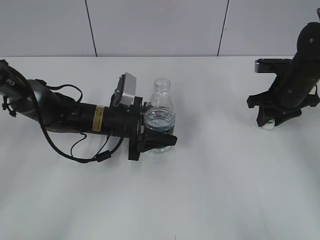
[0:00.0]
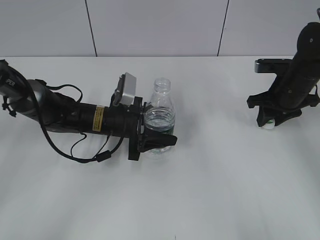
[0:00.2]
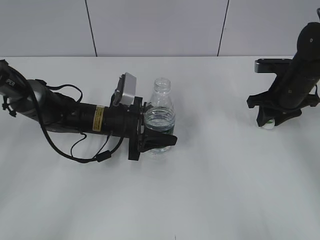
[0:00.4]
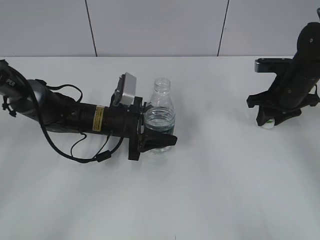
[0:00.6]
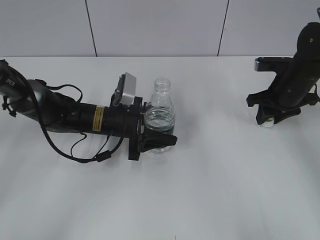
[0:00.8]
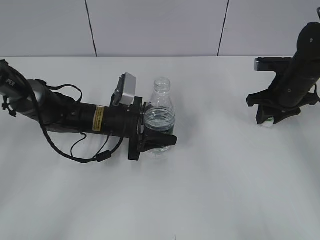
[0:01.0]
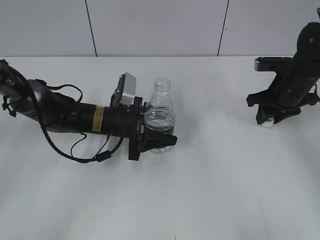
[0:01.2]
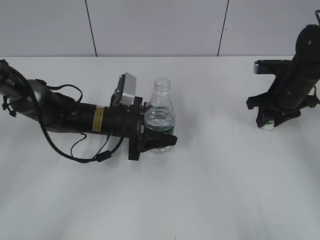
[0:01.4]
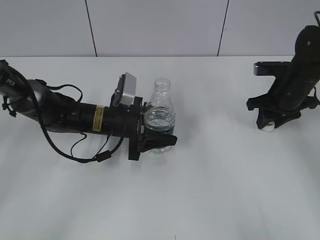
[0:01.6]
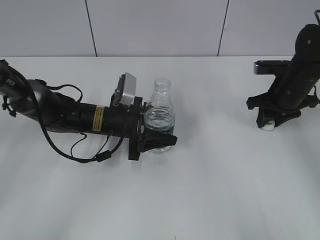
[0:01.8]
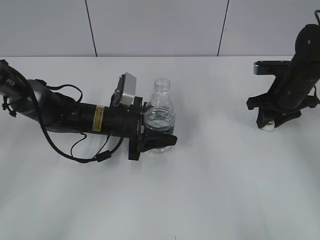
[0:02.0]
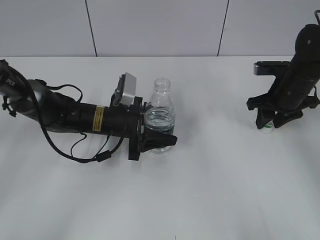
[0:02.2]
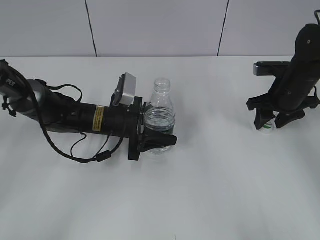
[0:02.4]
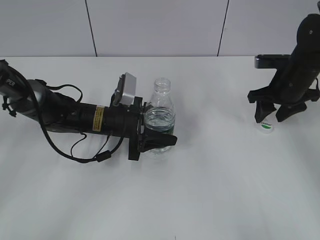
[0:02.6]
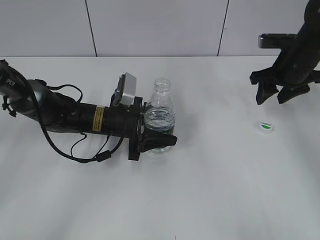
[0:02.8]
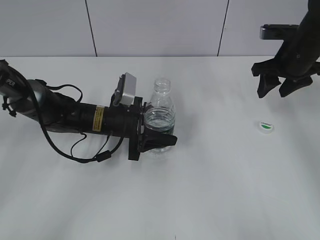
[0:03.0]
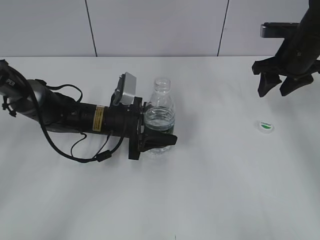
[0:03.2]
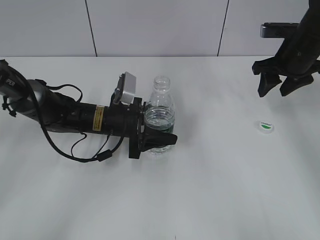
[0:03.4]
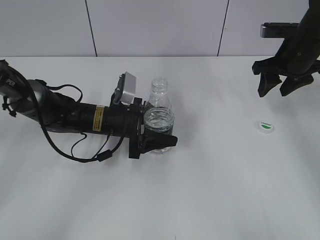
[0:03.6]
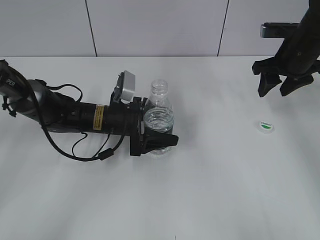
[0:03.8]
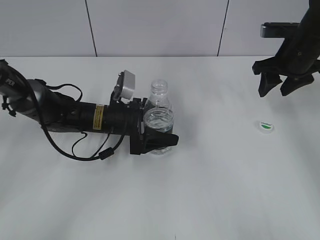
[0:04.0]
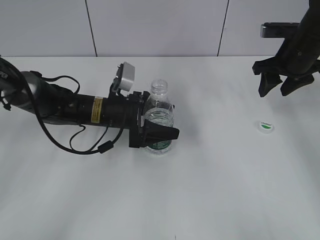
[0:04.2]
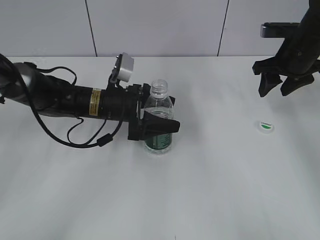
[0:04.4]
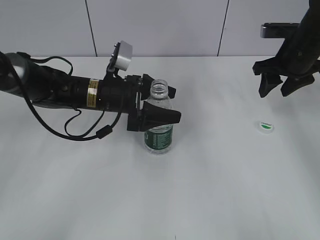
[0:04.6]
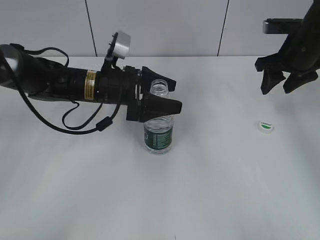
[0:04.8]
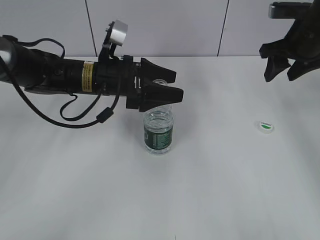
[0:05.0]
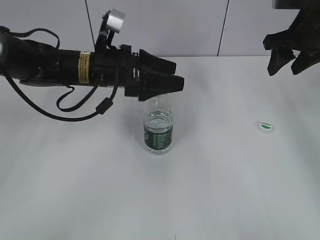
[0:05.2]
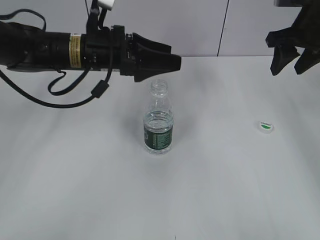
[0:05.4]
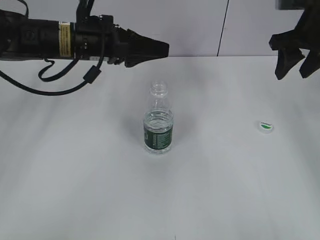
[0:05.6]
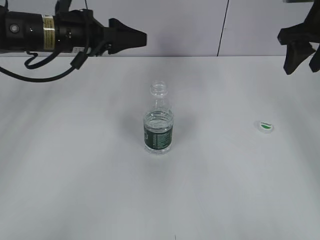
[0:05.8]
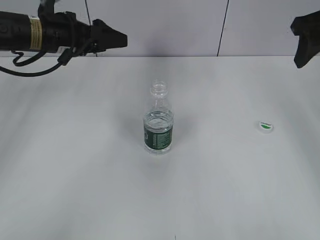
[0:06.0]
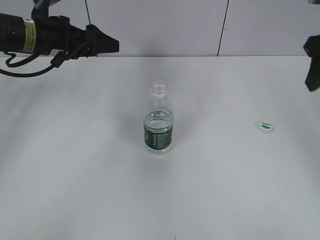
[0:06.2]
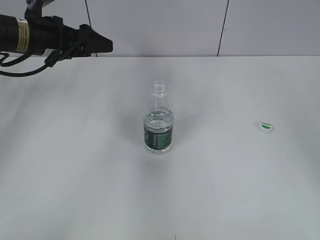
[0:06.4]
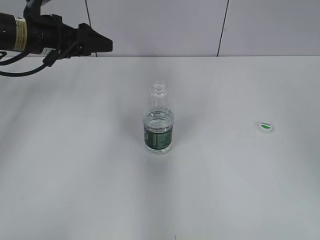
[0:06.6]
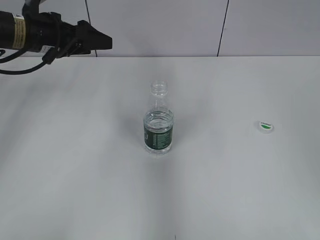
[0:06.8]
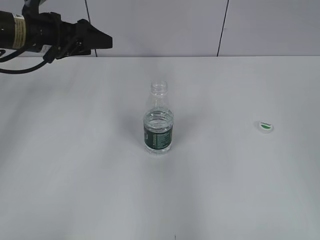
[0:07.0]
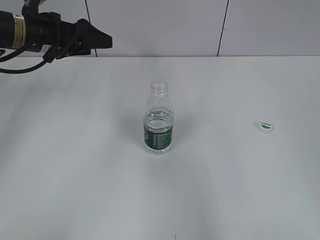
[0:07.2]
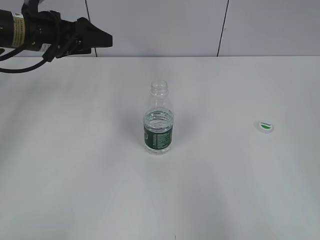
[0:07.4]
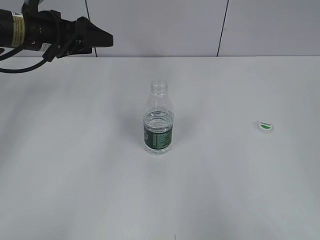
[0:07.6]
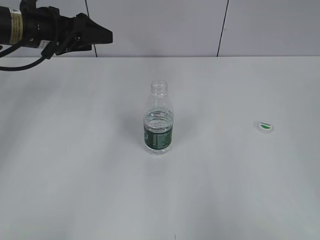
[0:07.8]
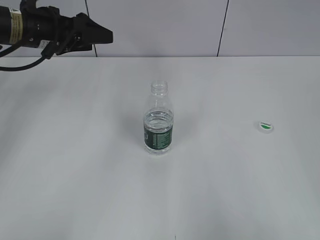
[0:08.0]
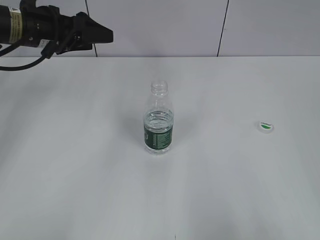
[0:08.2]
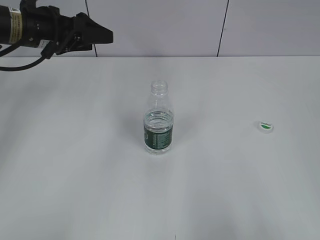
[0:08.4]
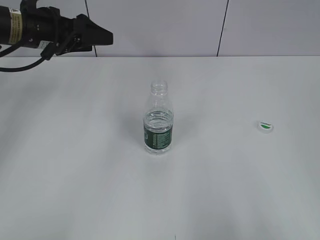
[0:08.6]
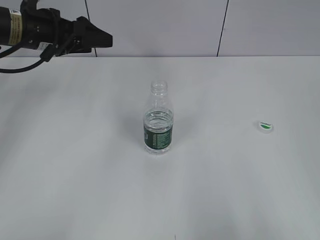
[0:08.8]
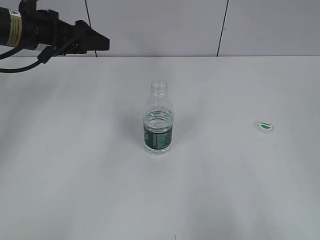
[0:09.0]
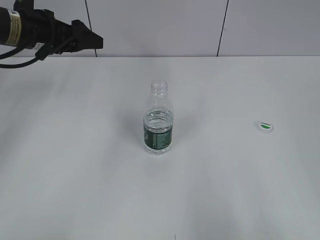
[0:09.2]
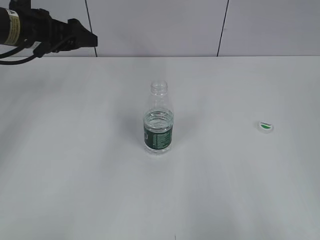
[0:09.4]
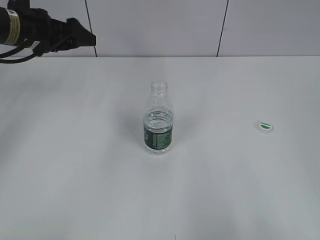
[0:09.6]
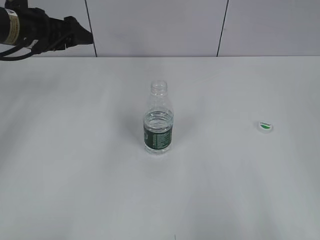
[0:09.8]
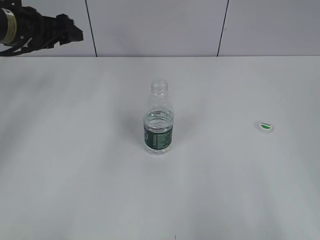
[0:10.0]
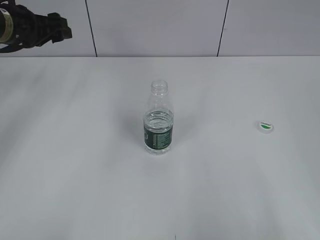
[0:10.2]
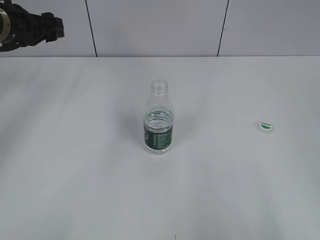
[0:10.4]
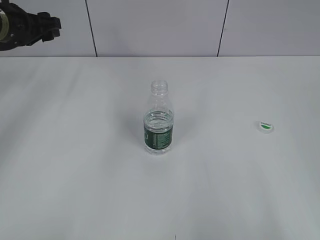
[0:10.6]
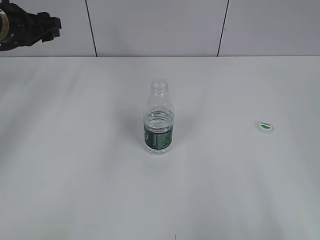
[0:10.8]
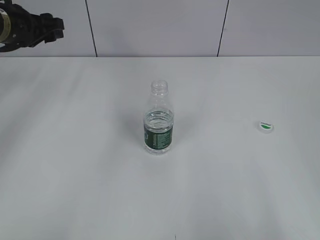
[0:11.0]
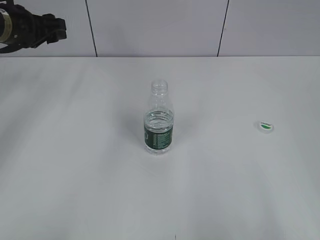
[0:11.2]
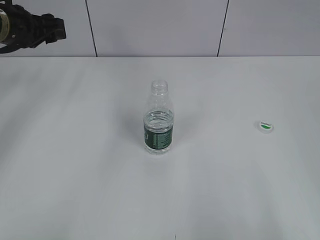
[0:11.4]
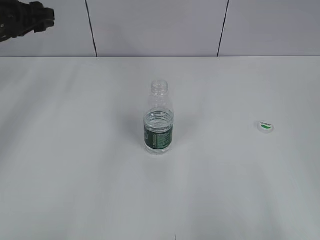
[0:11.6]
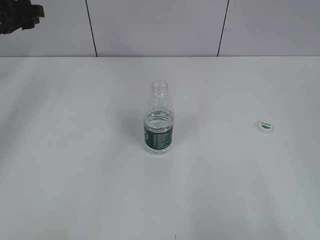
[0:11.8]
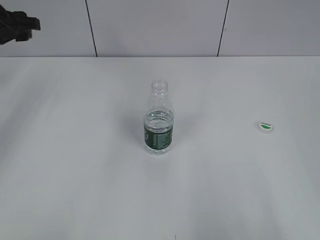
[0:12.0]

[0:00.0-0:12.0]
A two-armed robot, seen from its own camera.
Step, 0:00.0 to 0:02.6: Place the bottle cap on the table with the right gripper.
Step, 0:02.8 to 0:04.4: Place the bottle on the table with the left gripper.
0:00.0 to 0:01.6: Neither gripper changes place.
0:01.6 to 0:03.0: The right gripper goes some 5 cm upward, and opens its fingers.
0:03.0 to 0:04.4: The left gripper opens its fingers.
0:04.4 to 0:06.0: The left gripper heads upward and to the left, covering approximately 15 cm. Meanwhile the right gripper travels upward by about 10 cm.
0:06.0 to 0:07.6: The right gripper shifts roughly 35 cm backward.
0:07.6 to 0:09.0: The grippers stay close to where they were, moving slightly.
0:09.0 to 0:10.4: The left gripper ends up approximately 5 cm from where it was.
0:10.4 to 0:12.0: The grippers make only small movements.

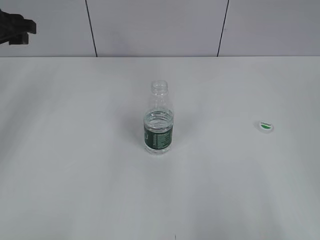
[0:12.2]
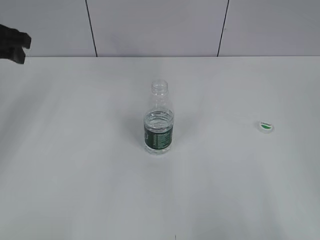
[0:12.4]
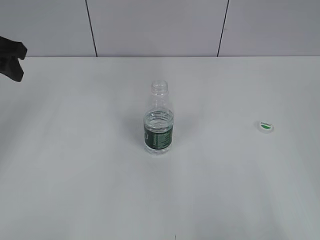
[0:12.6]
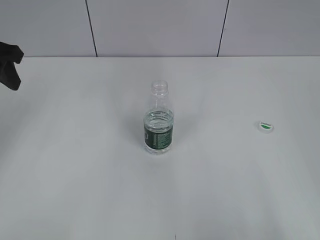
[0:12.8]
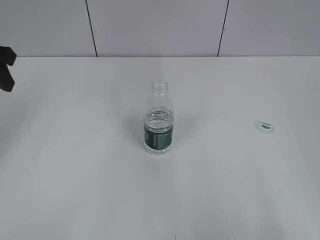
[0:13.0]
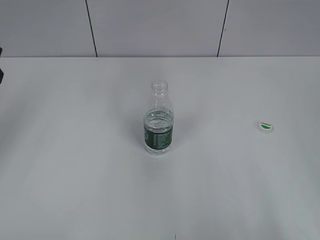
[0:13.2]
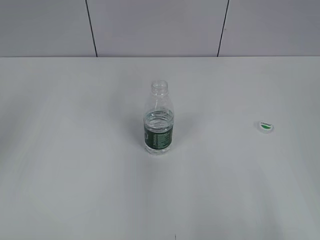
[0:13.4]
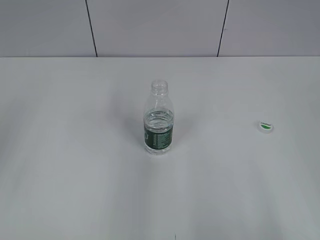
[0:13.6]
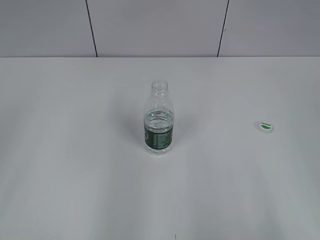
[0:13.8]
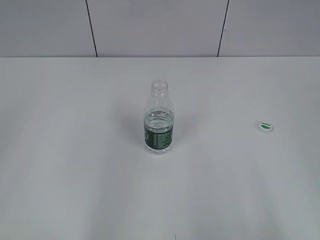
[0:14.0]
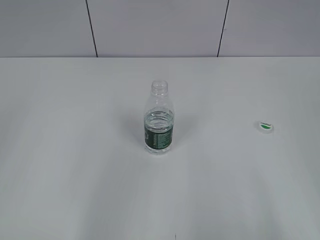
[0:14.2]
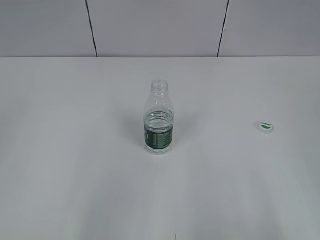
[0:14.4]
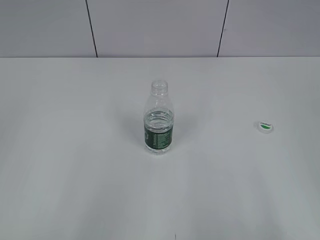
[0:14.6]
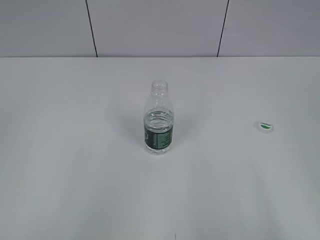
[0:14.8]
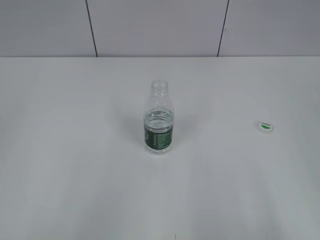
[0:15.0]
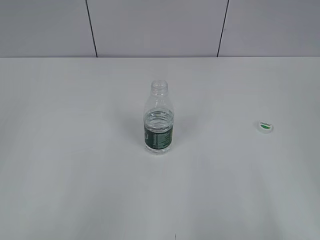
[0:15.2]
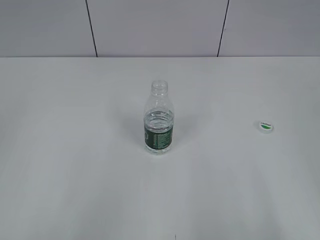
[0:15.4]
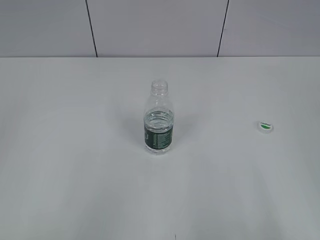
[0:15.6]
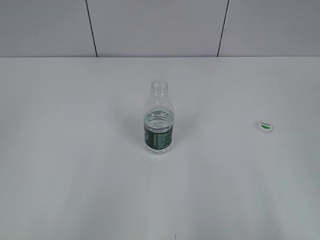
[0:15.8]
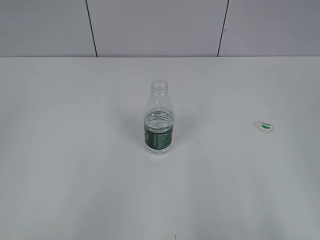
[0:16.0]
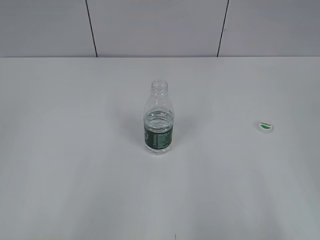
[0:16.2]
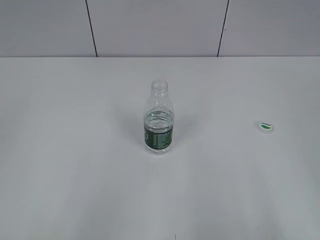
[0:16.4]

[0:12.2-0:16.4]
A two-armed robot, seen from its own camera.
0:12.2 to 0:13.6: The left gripper heads backward, covering roughly 20 cm.
0:15.0 to 0:16.4: Both grippers stay put.

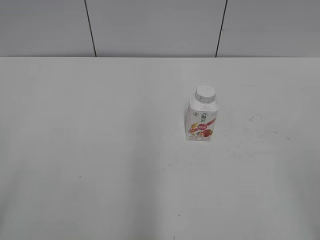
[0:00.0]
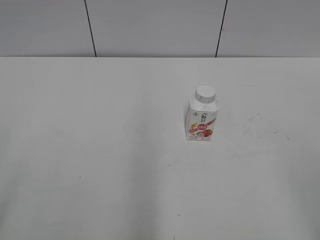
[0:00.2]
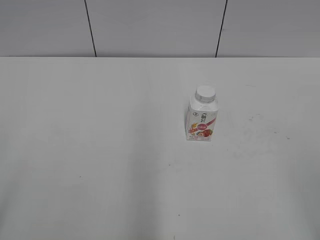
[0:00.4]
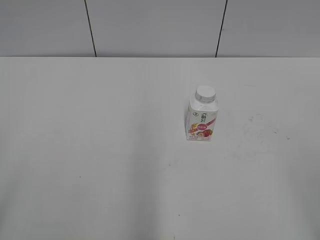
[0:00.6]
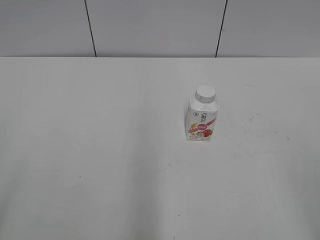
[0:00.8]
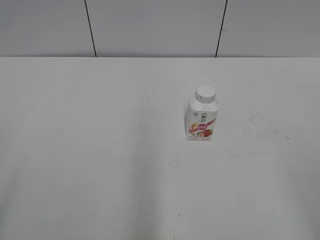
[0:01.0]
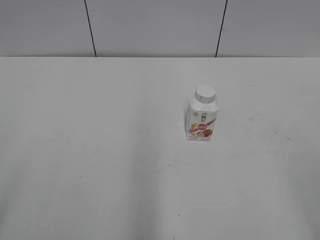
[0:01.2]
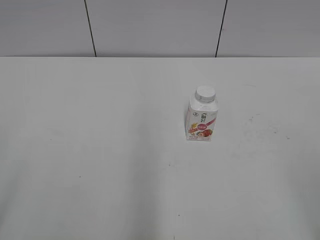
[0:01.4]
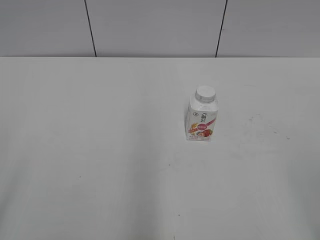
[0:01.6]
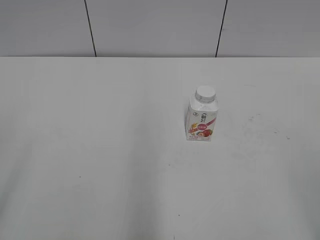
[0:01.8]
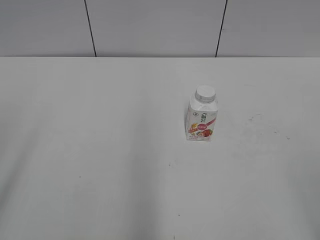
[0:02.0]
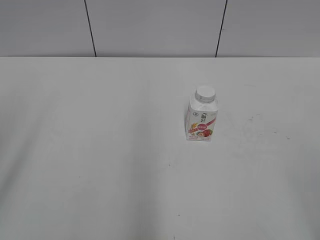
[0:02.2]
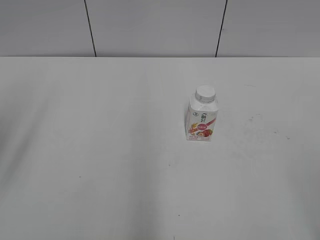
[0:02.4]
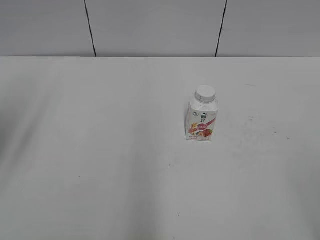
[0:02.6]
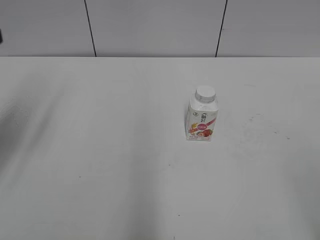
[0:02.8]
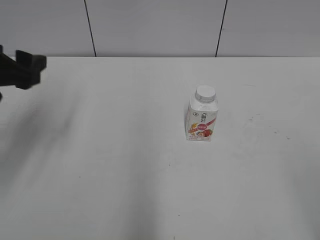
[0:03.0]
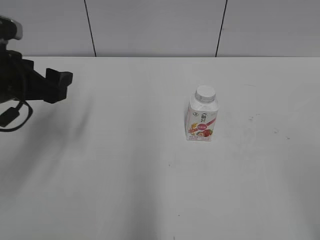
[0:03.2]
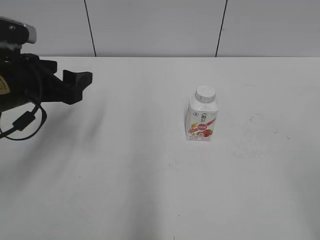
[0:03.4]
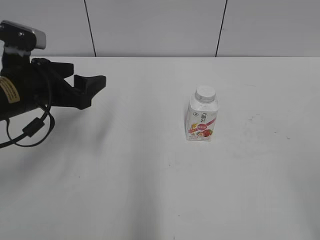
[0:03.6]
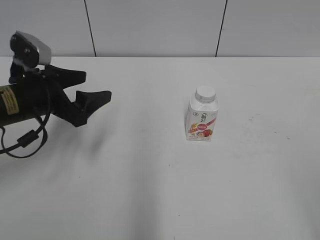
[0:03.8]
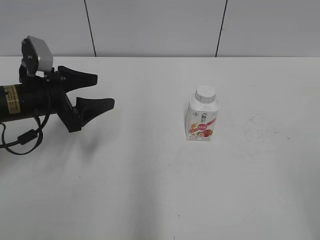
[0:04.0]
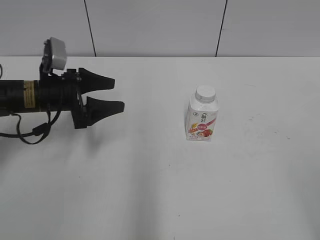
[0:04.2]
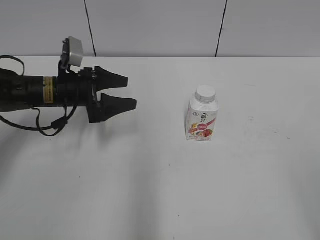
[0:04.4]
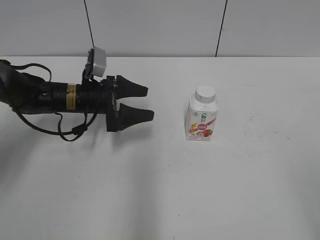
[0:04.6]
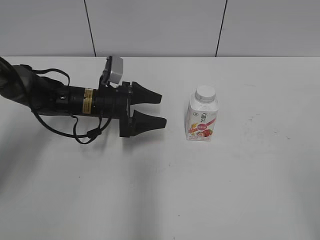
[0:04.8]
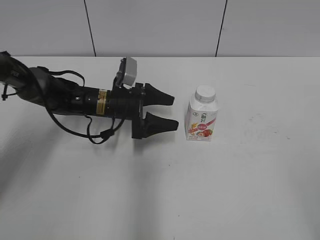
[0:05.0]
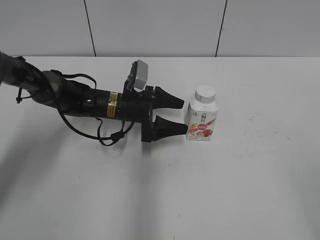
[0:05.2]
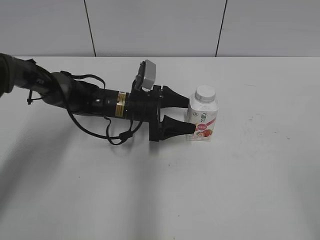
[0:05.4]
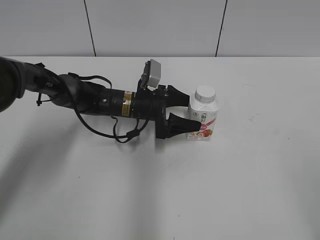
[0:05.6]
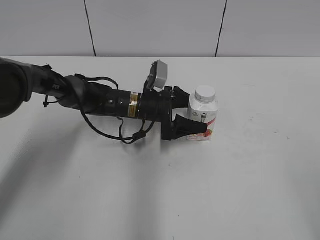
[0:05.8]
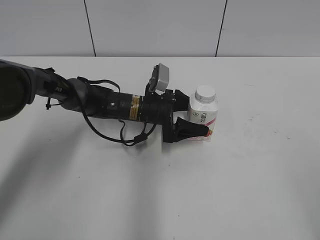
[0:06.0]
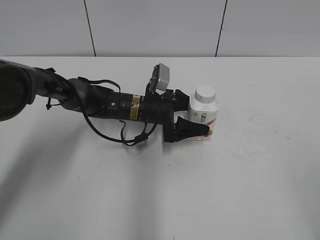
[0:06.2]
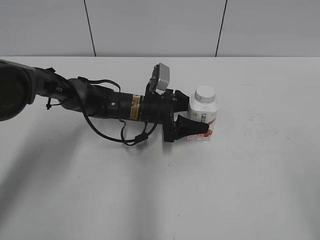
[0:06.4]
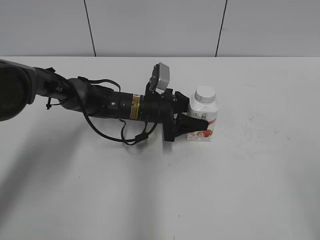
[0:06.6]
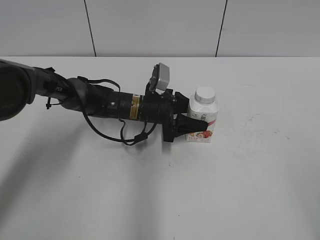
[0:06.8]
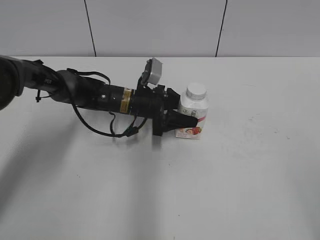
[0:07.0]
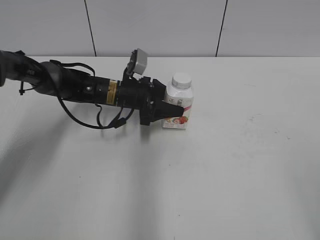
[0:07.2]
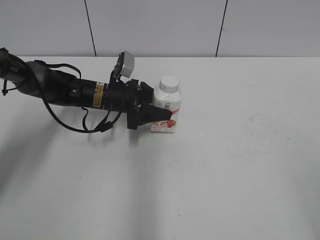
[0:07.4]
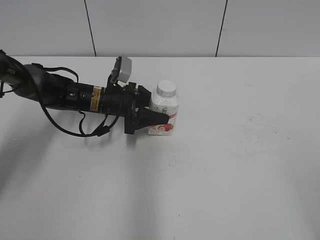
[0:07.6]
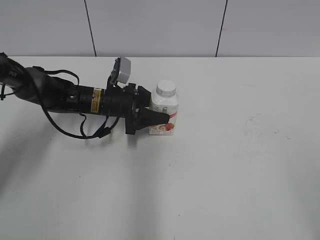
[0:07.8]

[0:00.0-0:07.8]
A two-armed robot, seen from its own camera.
Step, 0:00.0 to 0:06.6: Grab the Yili Changqing with the left hand.
0:01.6 to 0:03.2: The left gripper travels forward by approximately 30 cm.
0:03.2 to 0:04.6: The left gripper travels downward, forward and to the right by approximately 15 cm.
0:04.6 to 0:06.2: The left gripper travels to the right by some 10 cm.
0:06.2 to 0:07.8: The left gripper travels to the left by some 10 cm, and closes.
